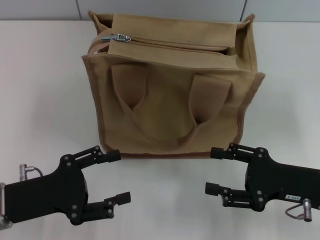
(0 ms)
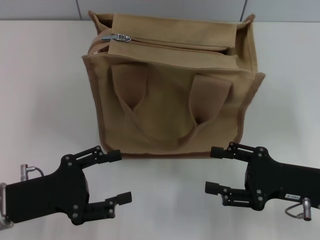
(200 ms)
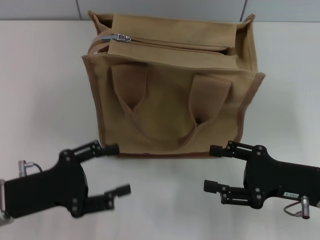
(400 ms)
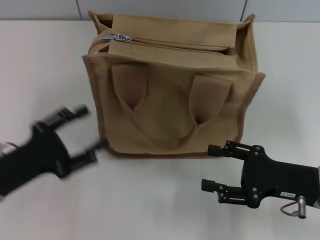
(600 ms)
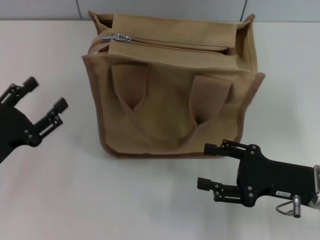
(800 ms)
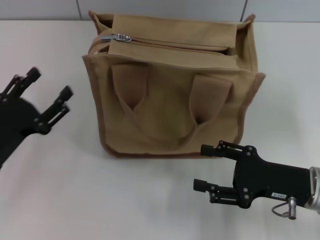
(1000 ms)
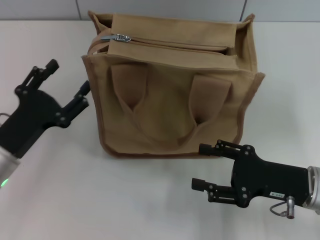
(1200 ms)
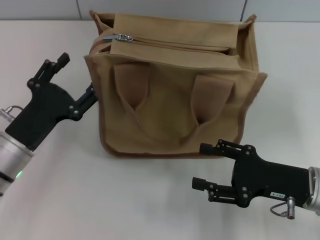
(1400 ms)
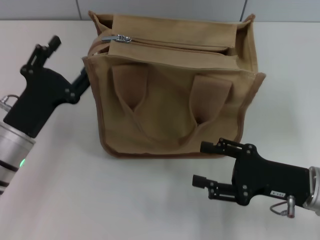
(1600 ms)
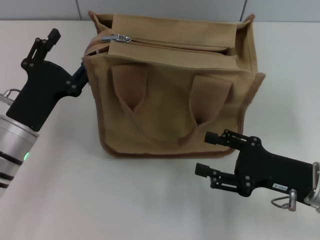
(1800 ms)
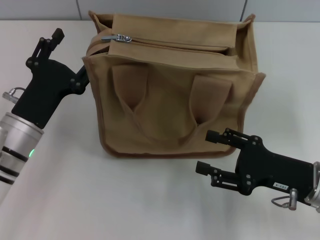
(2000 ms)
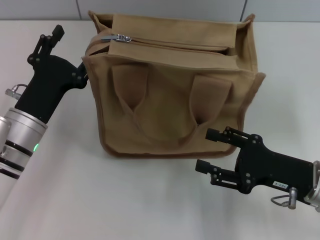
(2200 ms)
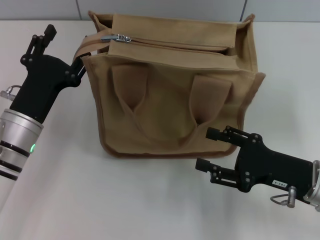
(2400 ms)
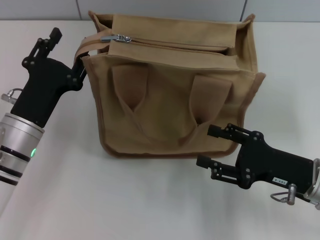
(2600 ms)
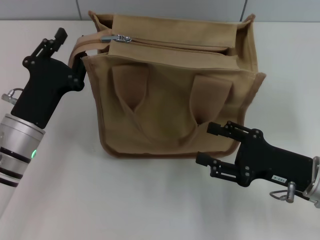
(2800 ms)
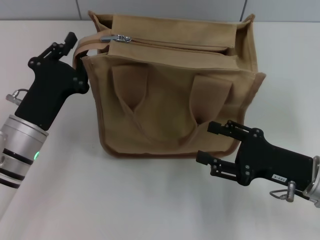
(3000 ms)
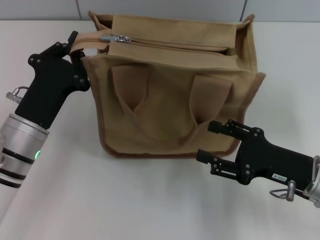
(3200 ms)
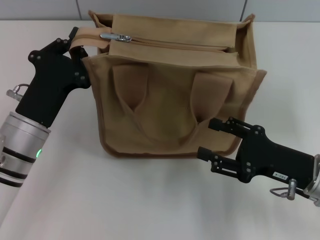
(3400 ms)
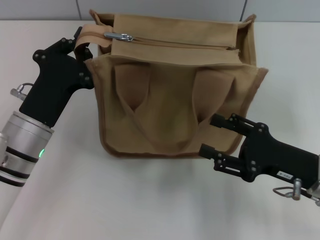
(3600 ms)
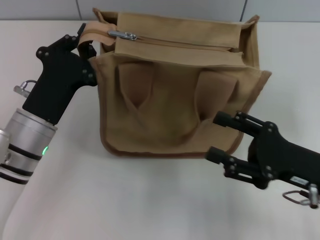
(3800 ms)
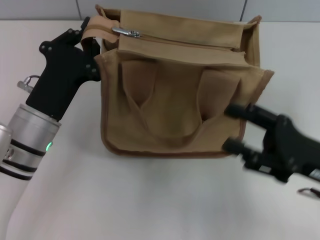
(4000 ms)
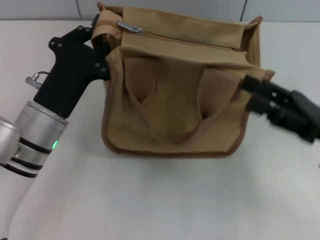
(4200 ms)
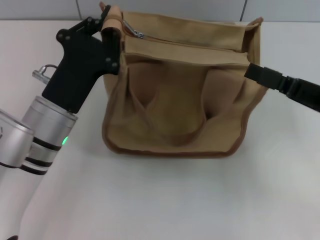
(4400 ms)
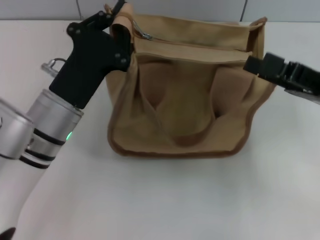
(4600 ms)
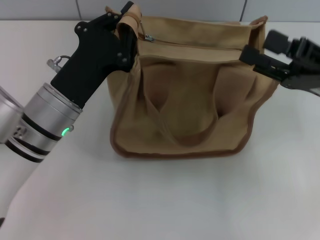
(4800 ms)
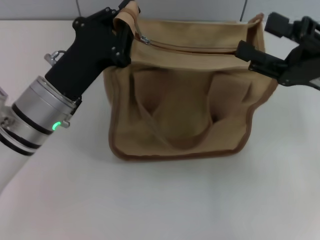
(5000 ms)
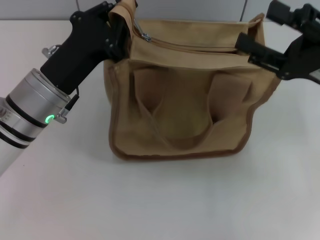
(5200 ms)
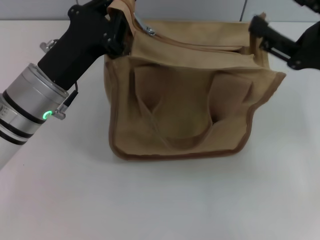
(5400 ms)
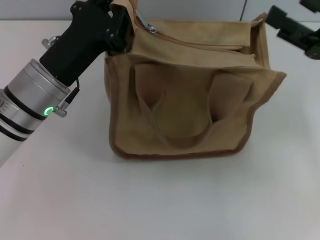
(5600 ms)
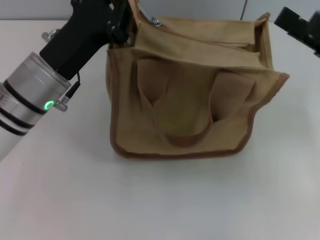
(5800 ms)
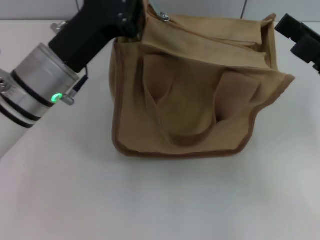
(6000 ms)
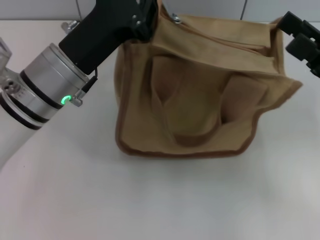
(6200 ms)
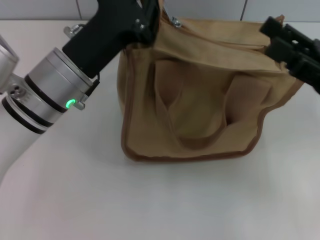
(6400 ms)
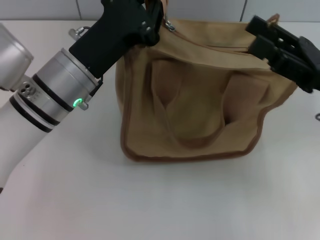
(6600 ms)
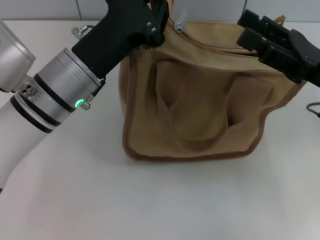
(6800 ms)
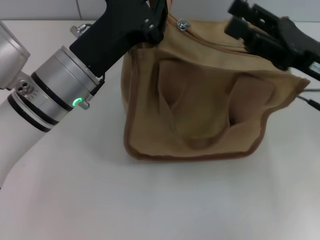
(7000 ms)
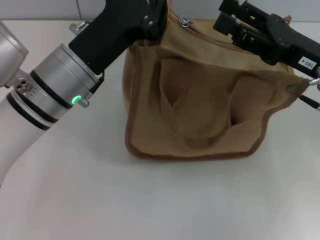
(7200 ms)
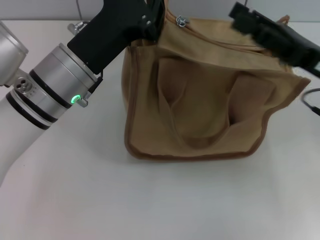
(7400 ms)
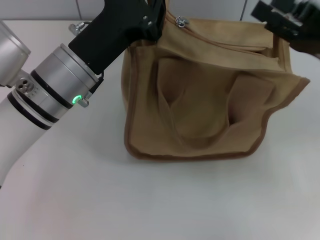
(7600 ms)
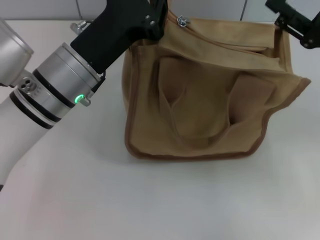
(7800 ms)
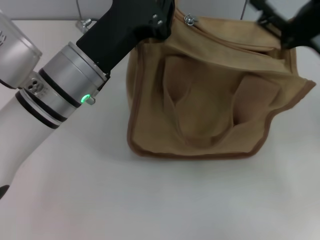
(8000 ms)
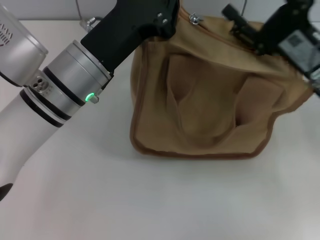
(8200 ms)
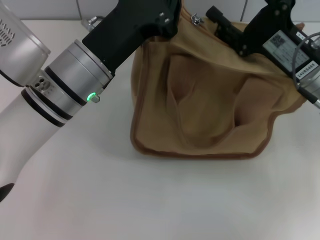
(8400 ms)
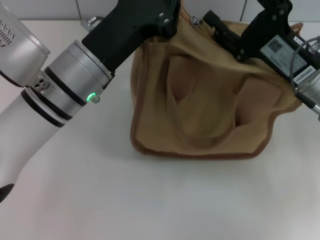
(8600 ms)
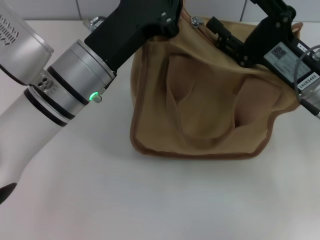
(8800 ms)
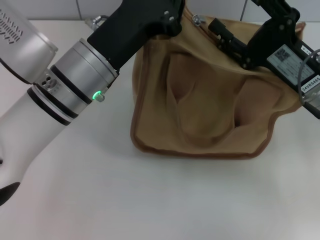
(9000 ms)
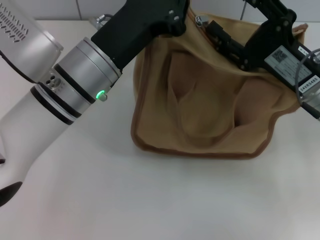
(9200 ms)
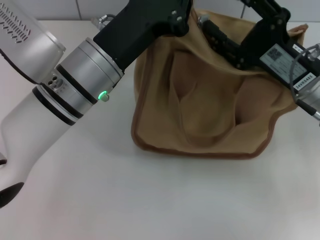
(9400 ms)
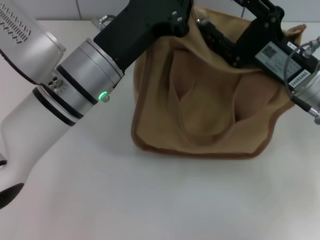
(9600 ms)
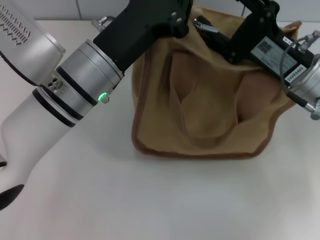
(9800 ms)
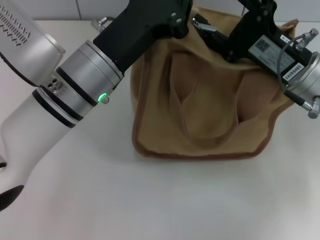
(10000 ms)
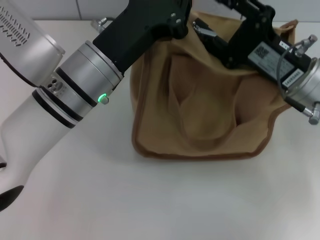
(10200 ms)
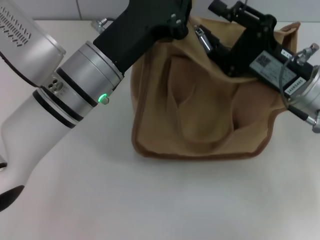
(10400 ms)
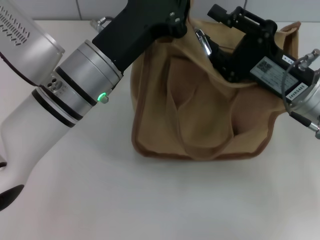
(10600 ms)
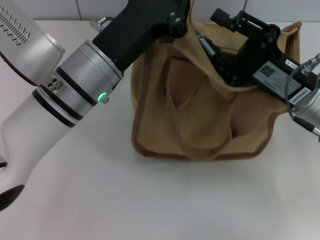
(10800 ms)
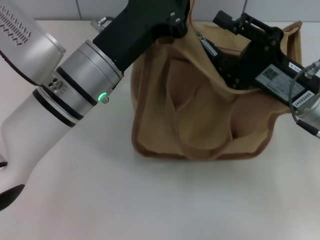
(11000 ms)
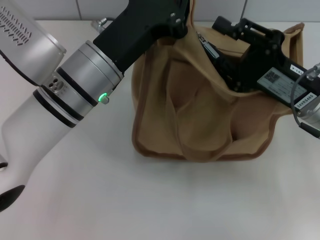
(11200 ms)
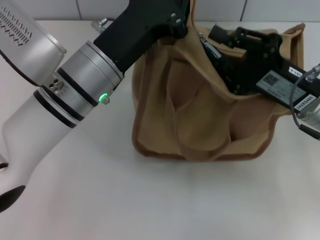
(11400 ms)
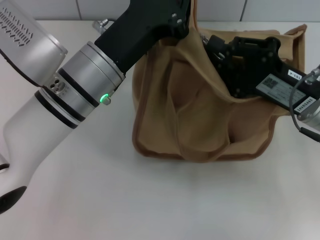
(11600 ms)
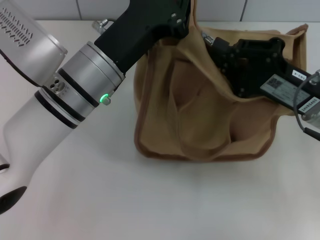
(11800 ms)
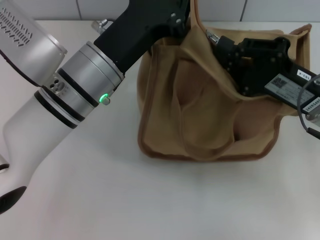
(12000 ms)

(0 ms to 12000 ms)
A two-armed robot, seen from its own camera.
0 ms - 1600 ms: The left gripper shifts about 5 cm forward.
1600 ms - 3000 ms: The left gripper closes.
3000 ms - 4400 ms: The left gripper ends up some 5 cm from where it was, and closes, while the right gripper moves upward, about 10 cm.
4400 ms - 6000 ms: The left gripper goes some 5 cm upward.
7600 ms - 9000 ms: The right gripper goes approximately 5 cm to the left.
9000 ms - 10400 ms: The grippers stay close to where they were, moving slightly.
10400 ms - 12000 ms: The right gripper closes.

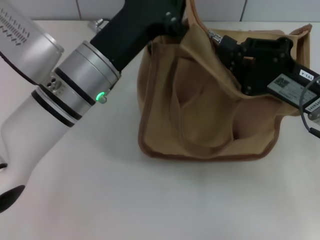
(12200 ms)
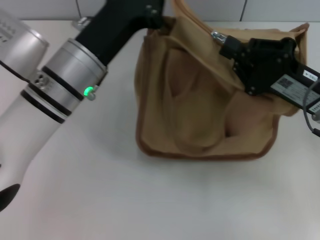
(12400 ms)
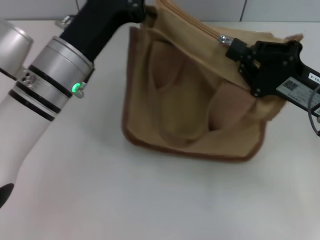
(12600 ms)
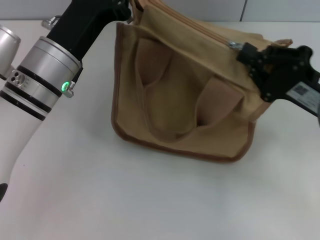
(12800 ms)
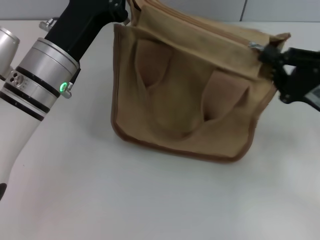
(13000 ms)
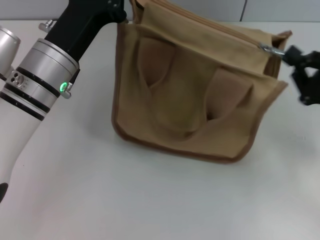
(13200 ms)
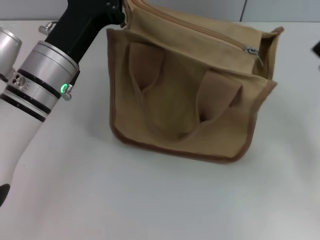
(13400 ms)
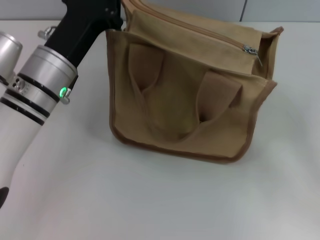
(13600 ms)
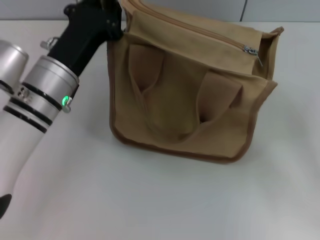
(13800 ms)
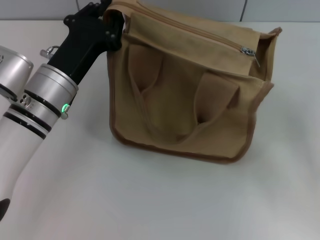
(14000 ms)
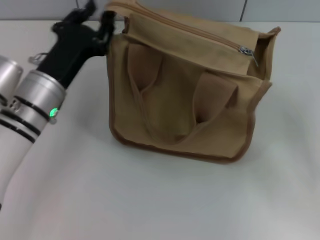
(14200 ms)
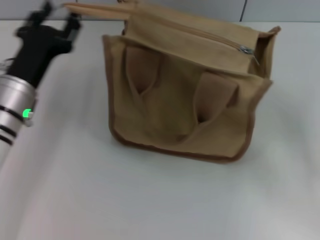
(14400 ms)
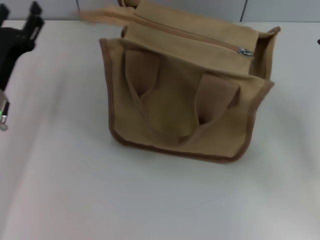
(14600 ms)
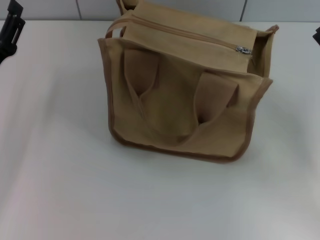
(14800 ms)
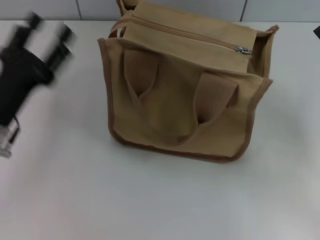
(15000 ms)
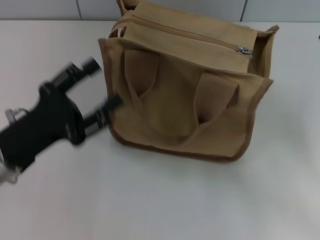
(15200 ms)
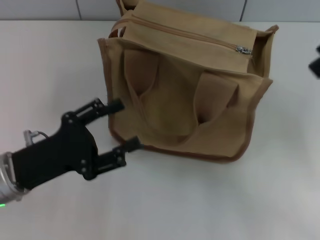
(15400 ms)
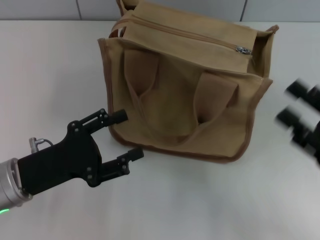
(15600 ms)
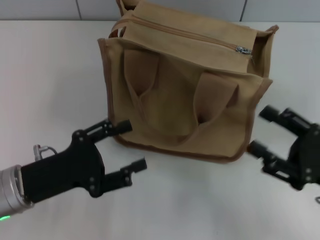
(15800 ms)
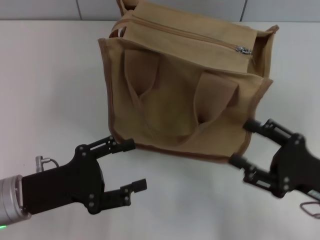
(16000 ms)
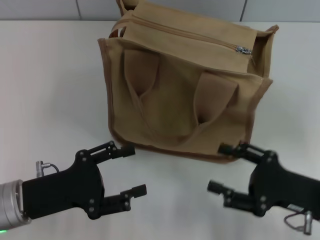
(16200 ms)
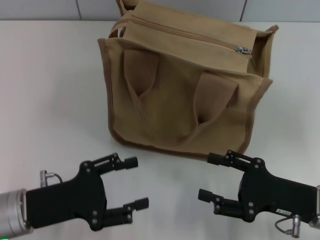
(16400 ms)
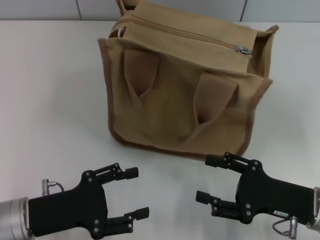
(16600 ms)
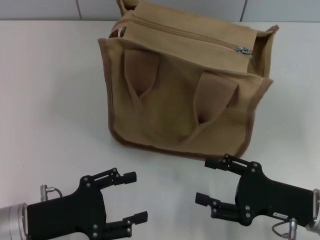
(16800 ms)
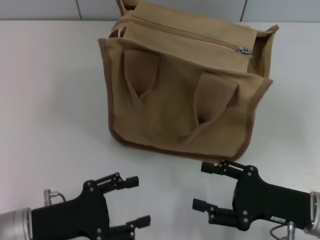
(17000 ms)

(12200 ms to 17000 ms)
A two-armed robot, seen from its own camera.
Step, 13400 ms - 14600 ms: Grab the zipper with your left hand.
12200 ms - 13800 ms: The left gripper goes roughly 5 cm to the left. The right gripper goes some 10 cm to the right and backward.
13800 ms - 15400 ms: The right gripper opens up; the left gripper moves backward and to the left, about 10 cm, and opens up.
15400 ms - 17000 ms: The left gripper moves about 5 cm. Meanwhile the right gripper heads to the left and downward, covering approximately 10 cm.

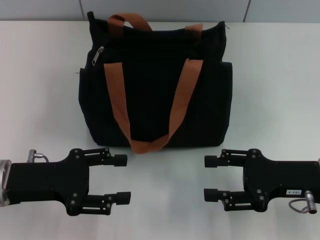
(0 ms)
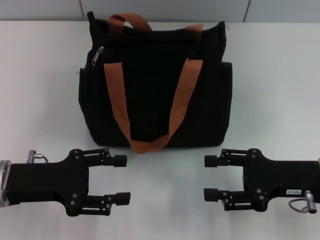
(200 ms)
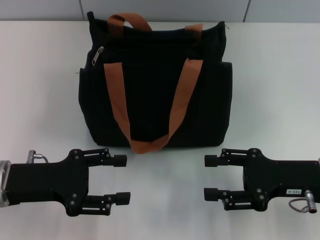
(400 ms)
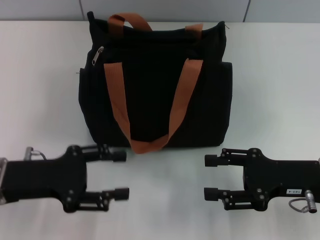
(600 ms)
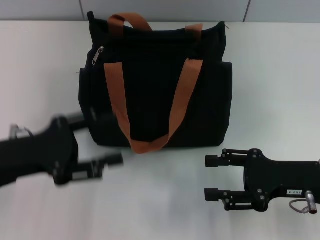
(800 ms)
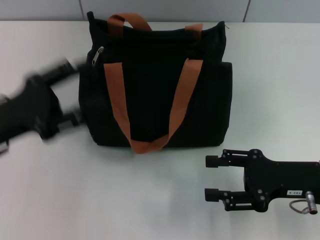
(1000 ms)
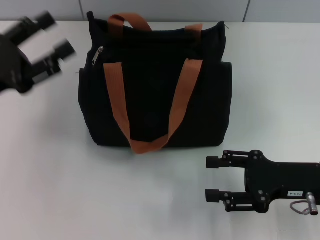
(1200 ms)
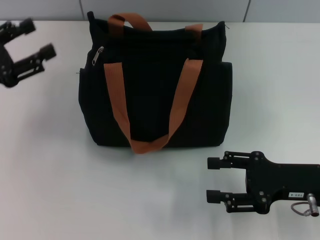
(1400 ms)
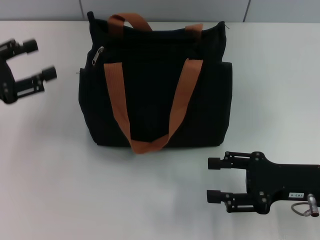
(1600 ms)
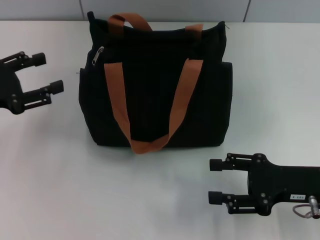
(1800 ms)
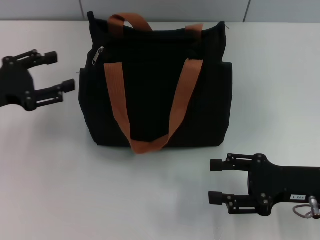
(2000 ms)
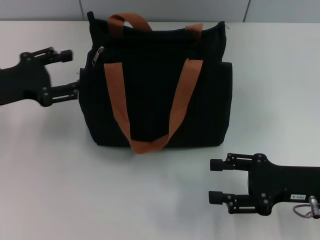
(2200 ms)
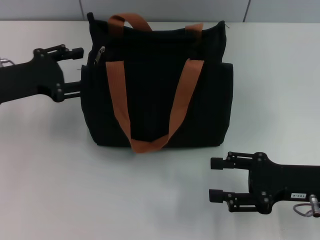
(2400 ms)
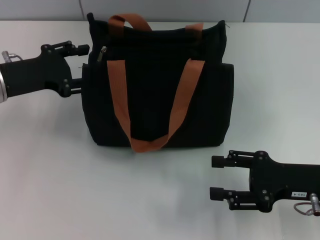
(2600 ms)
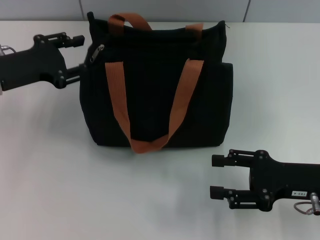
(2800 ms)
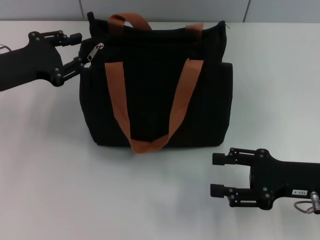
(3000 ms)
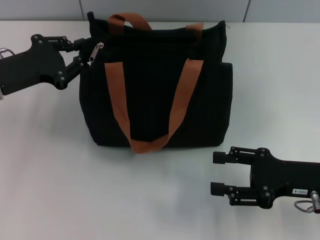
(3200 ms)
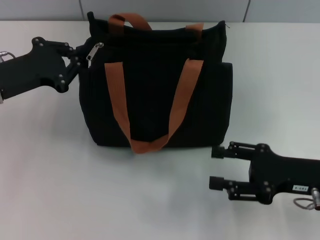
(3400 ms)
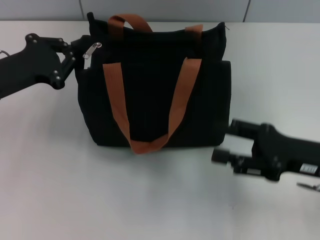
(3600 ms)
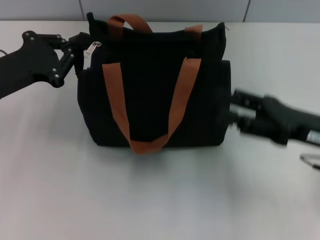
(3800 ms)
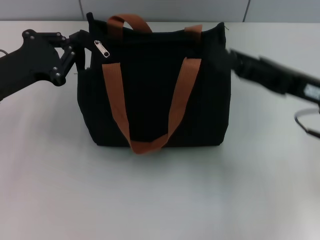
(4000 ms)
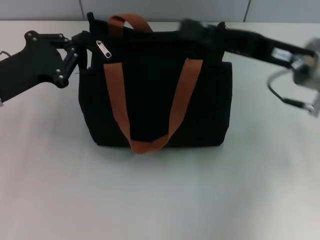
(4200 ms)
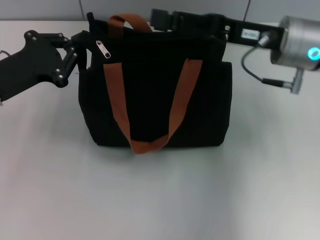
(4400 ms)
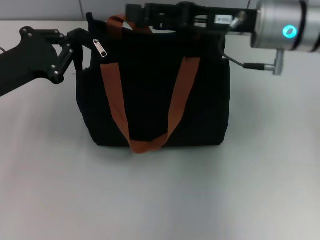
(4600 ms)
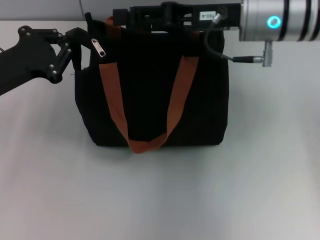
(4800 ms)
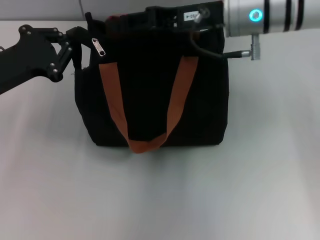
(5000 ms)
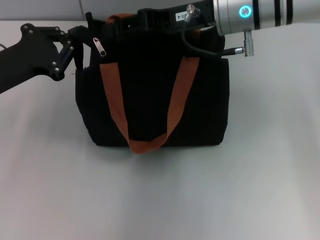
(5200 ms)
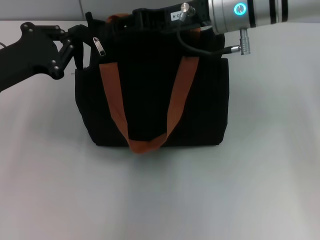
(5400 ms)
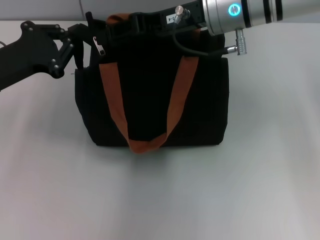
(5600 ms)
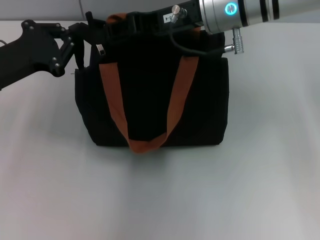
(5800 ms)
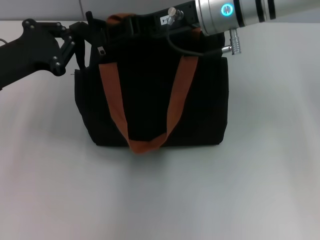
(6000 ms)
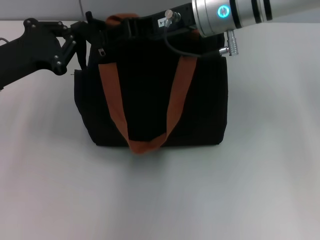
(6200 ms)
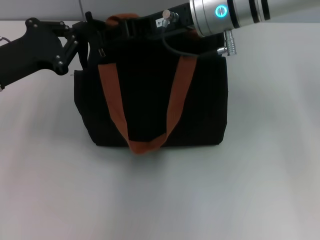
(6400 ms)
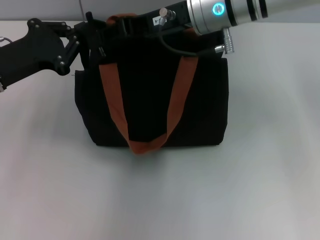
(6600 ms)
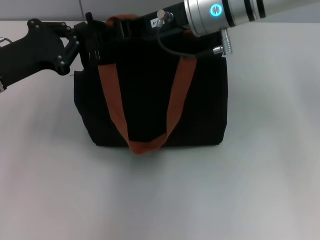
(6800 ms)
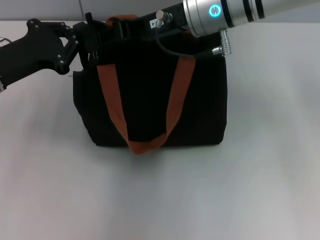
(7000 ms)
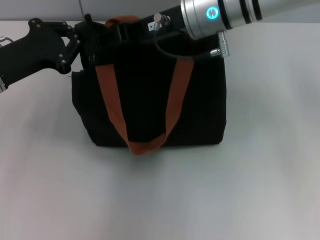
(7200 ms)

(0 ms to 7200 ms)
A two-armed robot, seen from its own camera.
0 ms - 1400 ms: The left gripper shifts some 10 cm to the left, forward and upward.
1400 ms - 2800 ms: The left gripper goes approximately 5 cm forward.
2800 ms - 4400 ms: The right gripper travels forward, upward and to the left by roughly 20 cm. Meanwhile the left gripper closes its fingers.
4400 ms - 5800 ms: The right gripper heads to the left, covering about 10 cm.
5800 ms - 7200 ms: The grippers move only a little.
